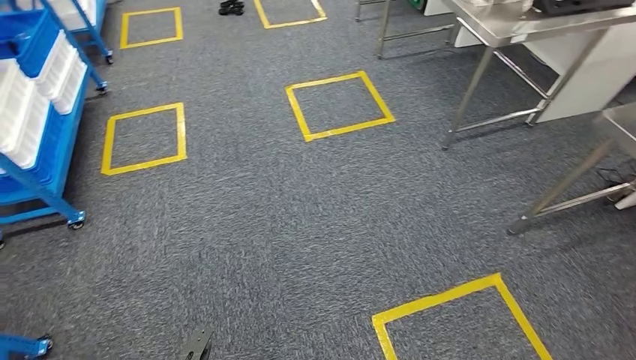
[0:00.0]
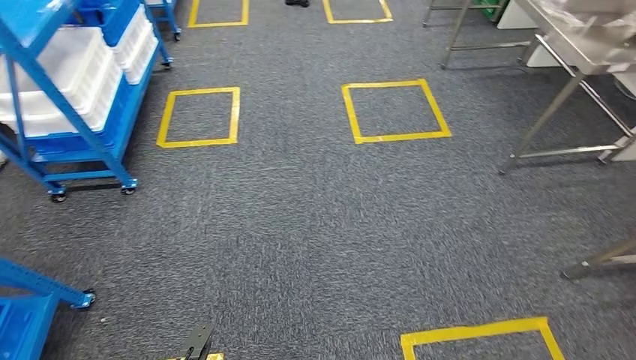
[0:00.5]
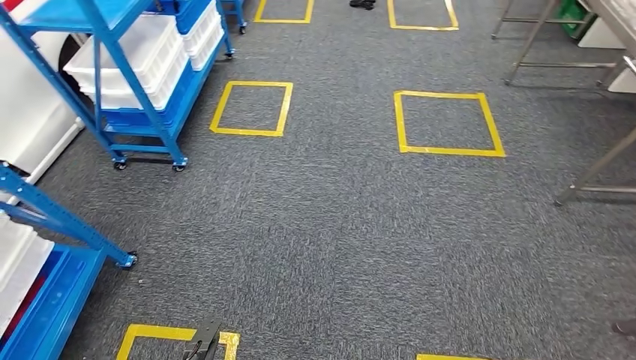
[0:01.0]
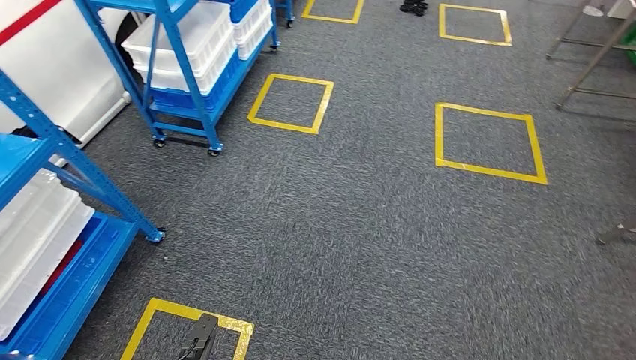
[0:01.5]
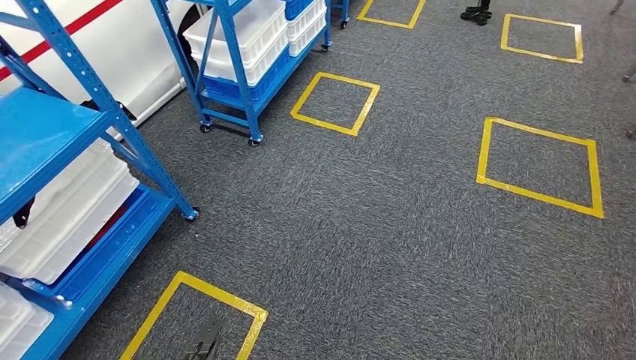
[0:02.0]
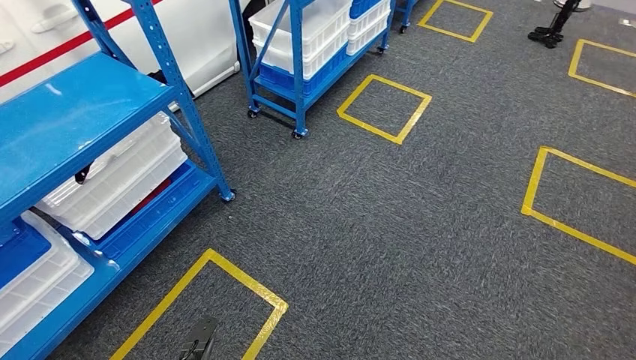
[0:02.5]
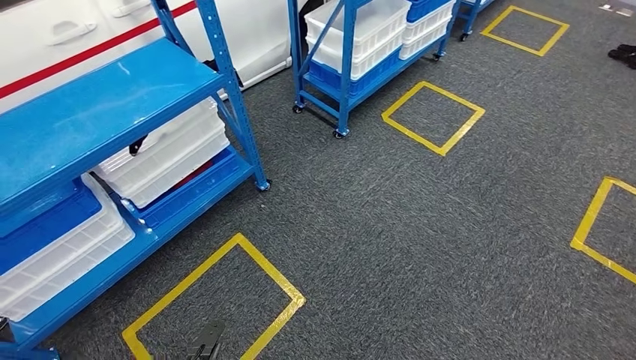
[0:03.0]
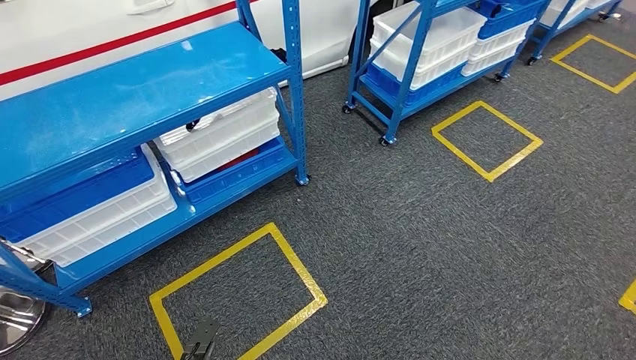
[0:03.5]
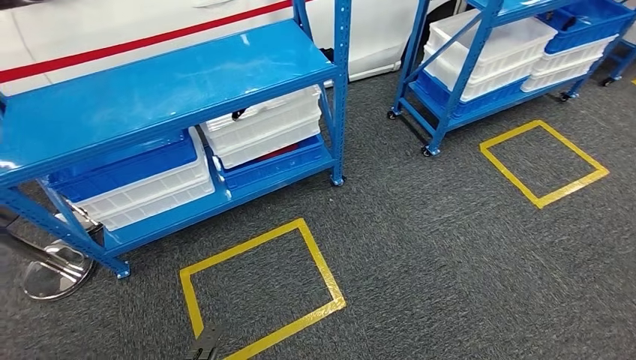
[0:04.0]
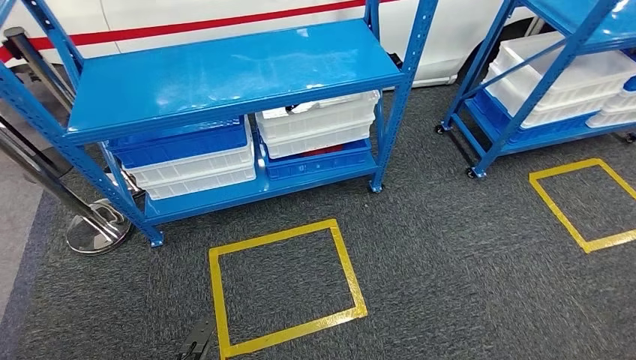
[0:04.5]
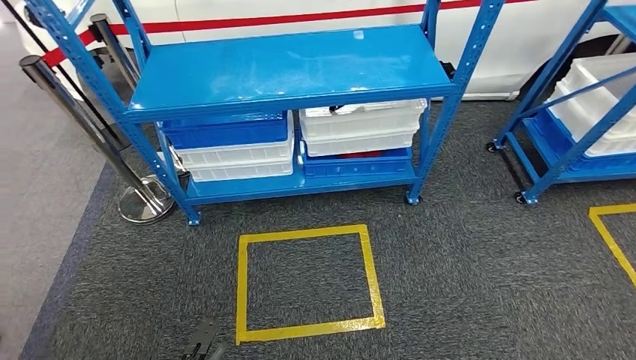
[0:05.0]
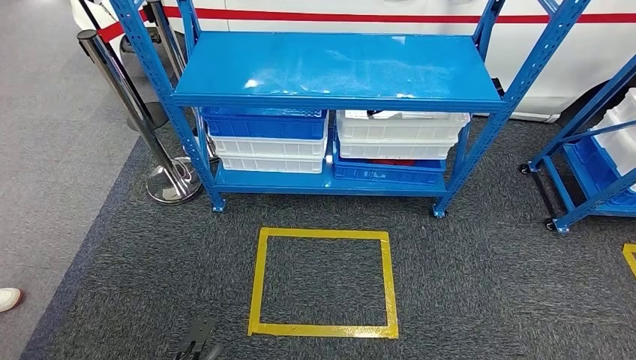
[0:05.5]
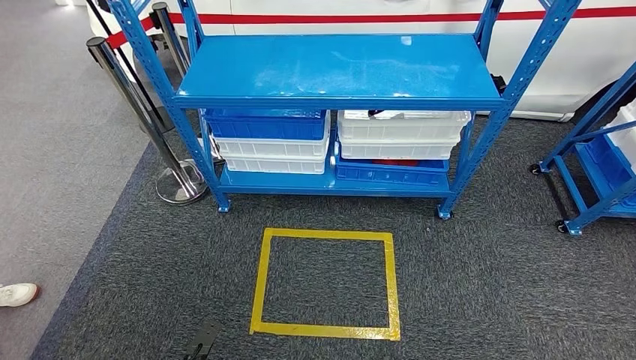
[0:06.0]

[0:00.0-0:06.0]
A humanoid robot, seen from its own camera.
Step, 0:00.0 to 0:06.0: Return to the initial position at the shelf.
